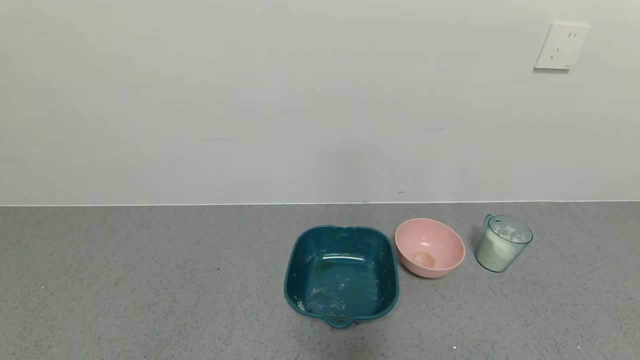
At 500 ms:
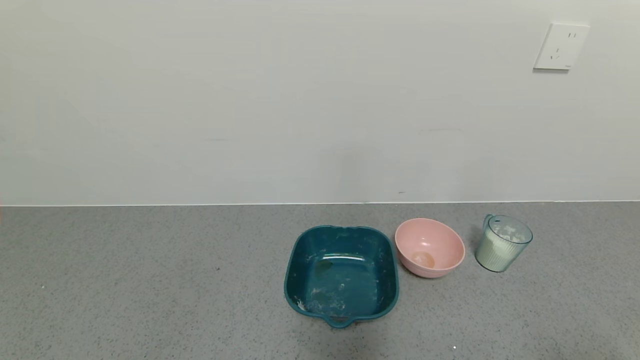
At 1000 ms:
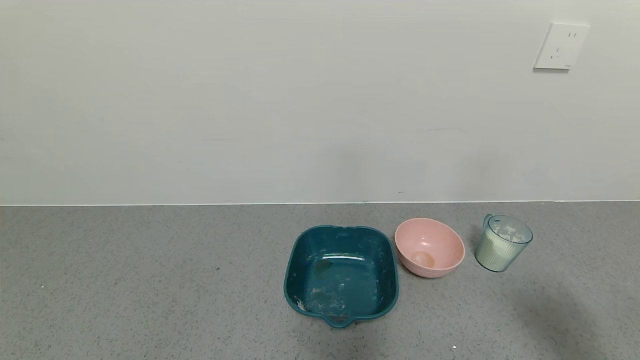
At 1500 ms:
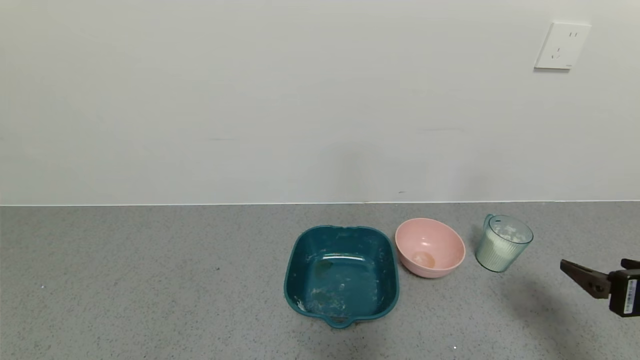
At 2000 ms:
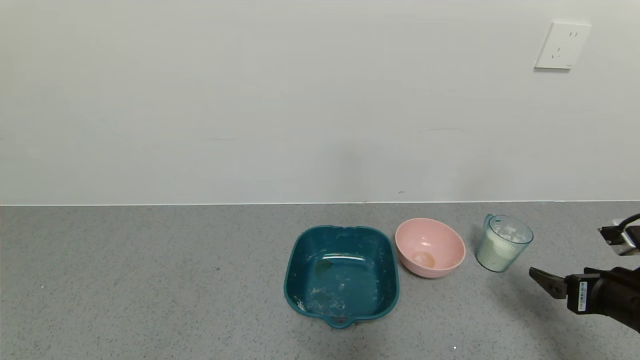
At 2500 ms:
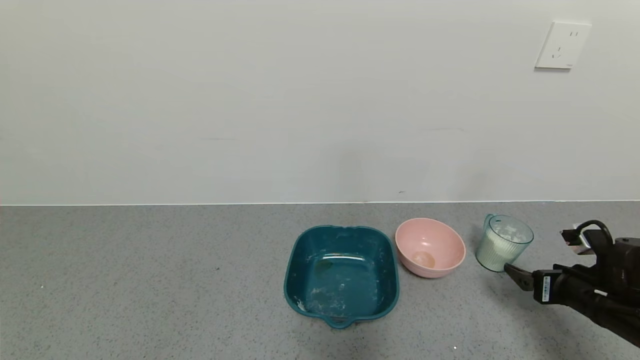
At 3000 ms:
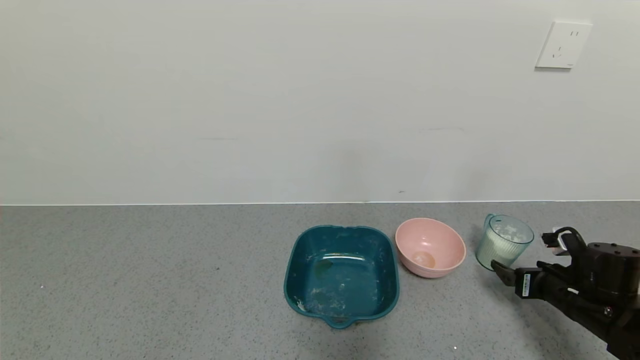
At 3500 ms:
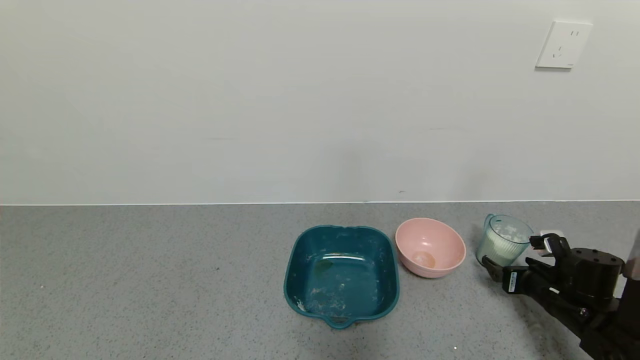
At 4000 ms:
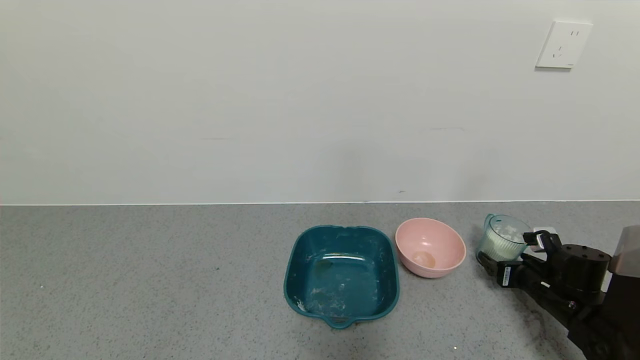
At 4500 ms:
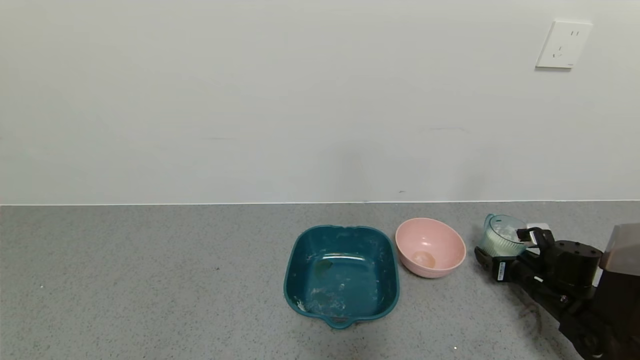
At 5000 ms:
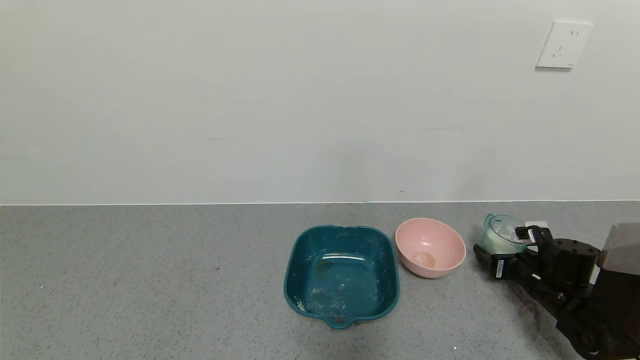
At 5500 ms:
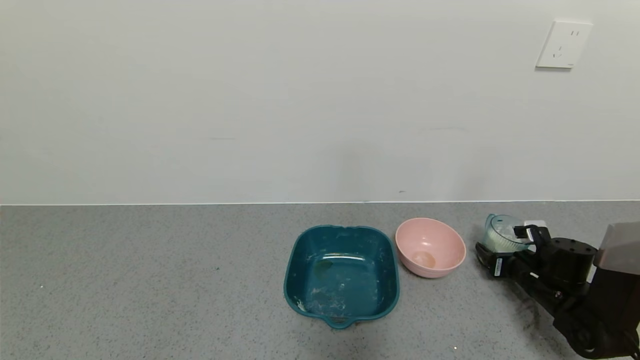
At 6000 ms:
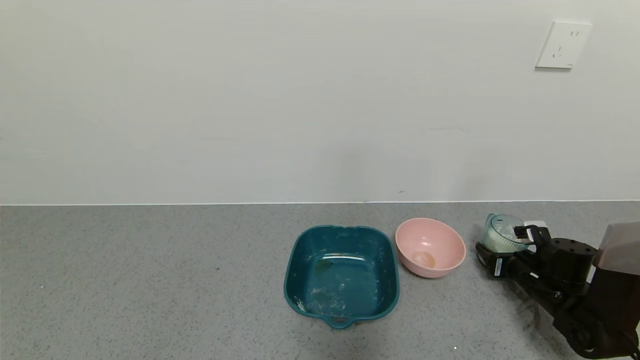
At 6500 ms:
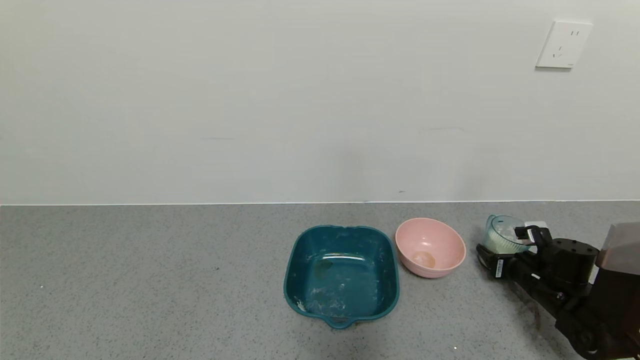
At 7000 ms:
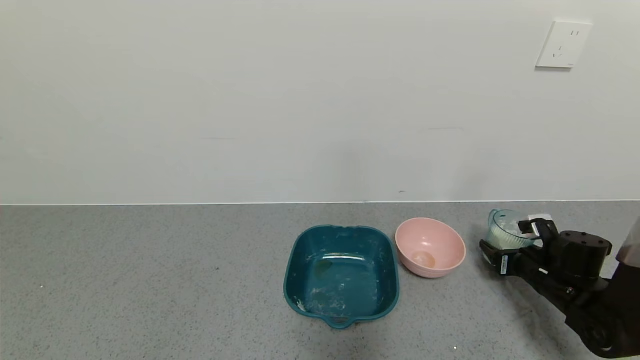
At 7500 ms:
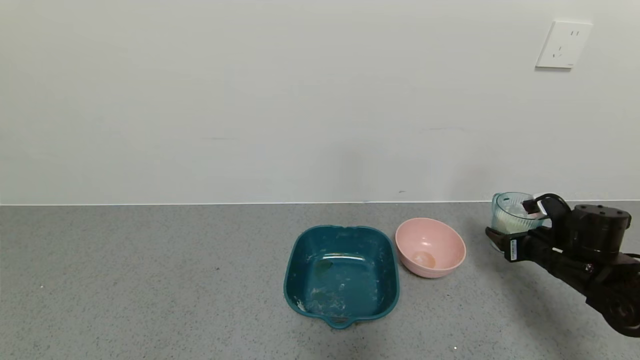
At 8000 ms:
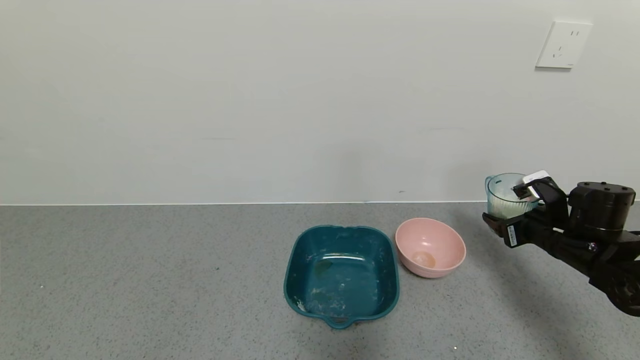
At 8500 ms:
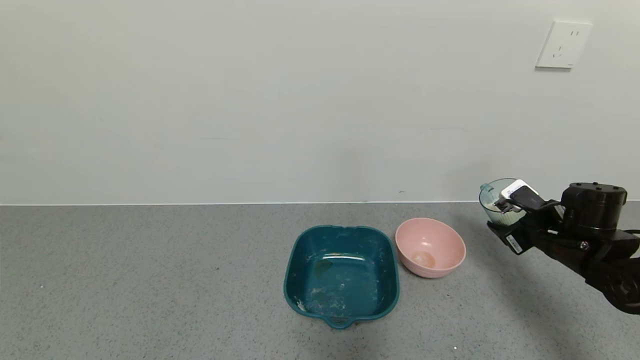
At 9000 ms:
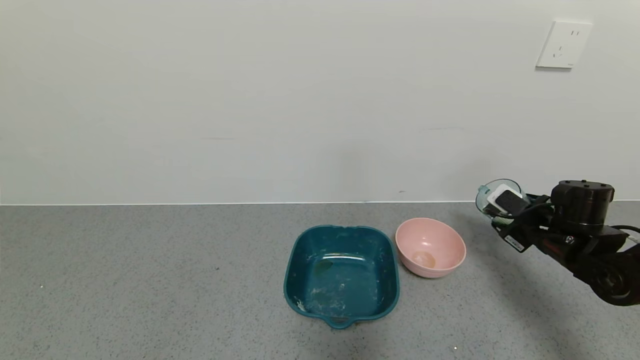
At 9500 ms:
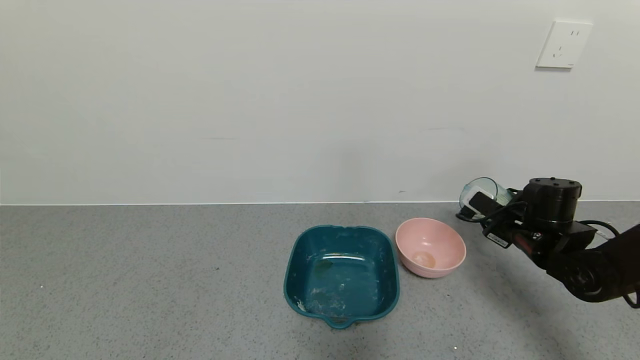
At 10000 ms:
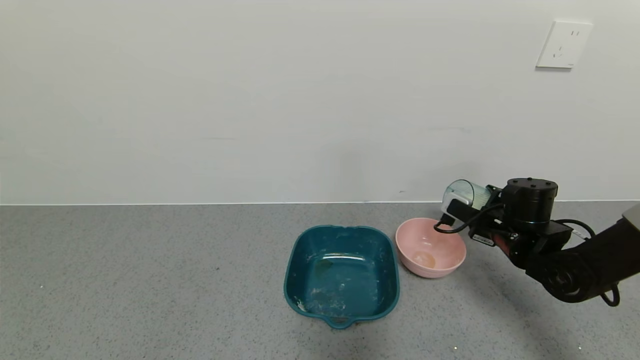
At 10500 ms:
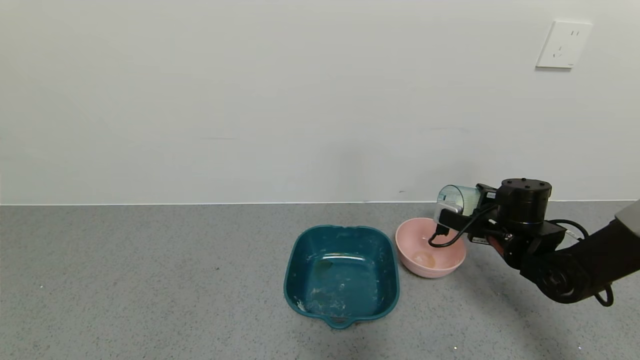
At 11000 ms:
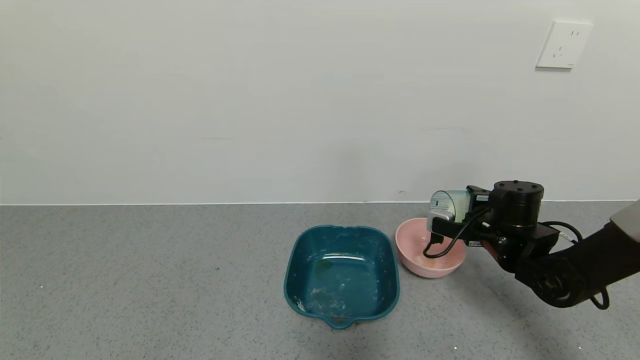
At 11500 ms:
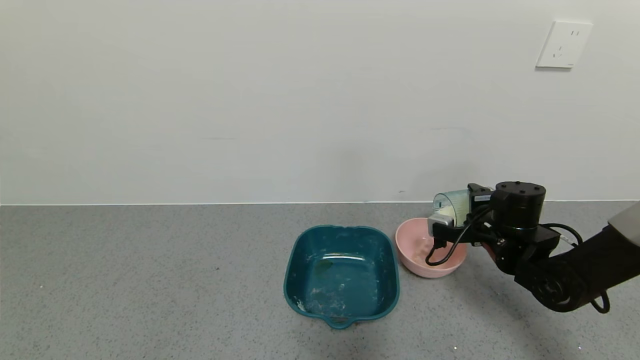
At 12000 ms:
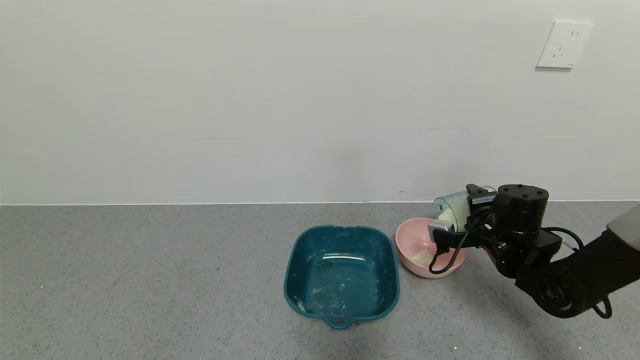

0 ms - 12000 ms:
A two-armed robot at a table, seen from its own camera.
Task of the whole recording: use a gripper to pick up the cup and pour the powder into a bowl or tray.
Step, 0 ms - 6000 ms: Grasp the glass of powder with the right gripper.
0 ms - 2000 ms: The right gripper heads forward, covering roughly 25 cm.
2000 ms - 4000 ms: The right gripper moves forward and downward, approximately 15 cm.
4000 ms - 6000 ms: The right gripper closes its fingers.
6000 ms - 8000 ms: The right gripper goes about 10 cm upward.
8000 ms - 10000 ms: The right gripper moves to the left, roughly 5 cm.

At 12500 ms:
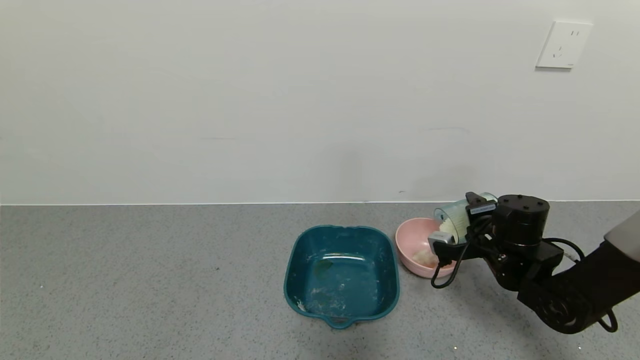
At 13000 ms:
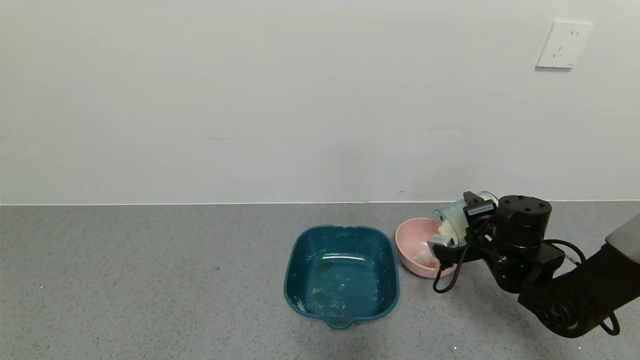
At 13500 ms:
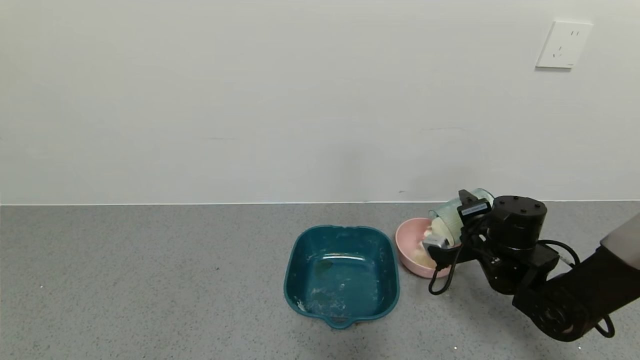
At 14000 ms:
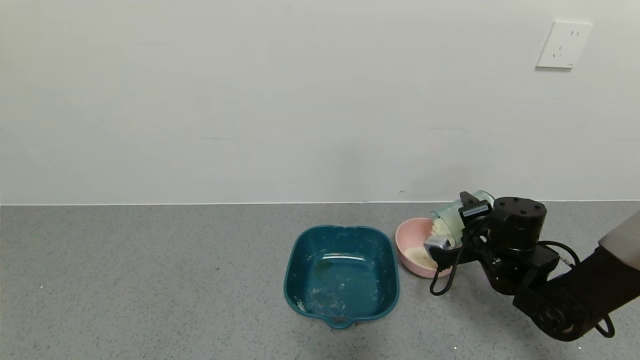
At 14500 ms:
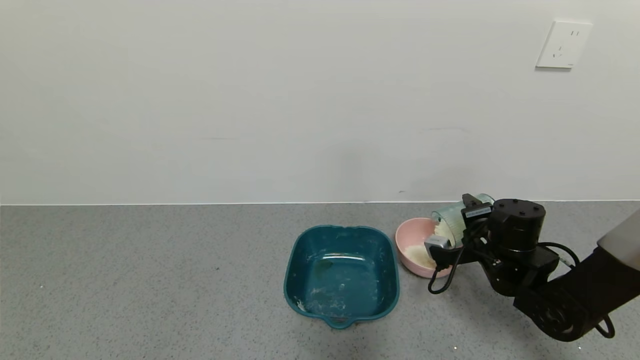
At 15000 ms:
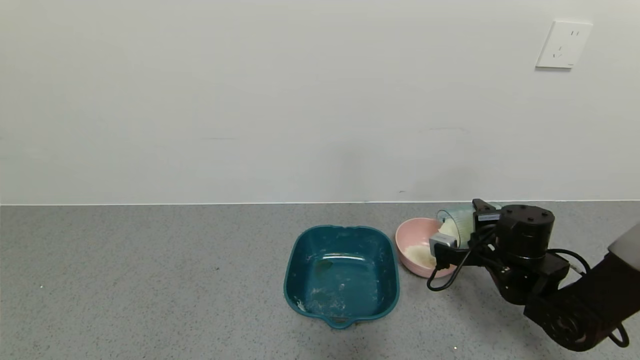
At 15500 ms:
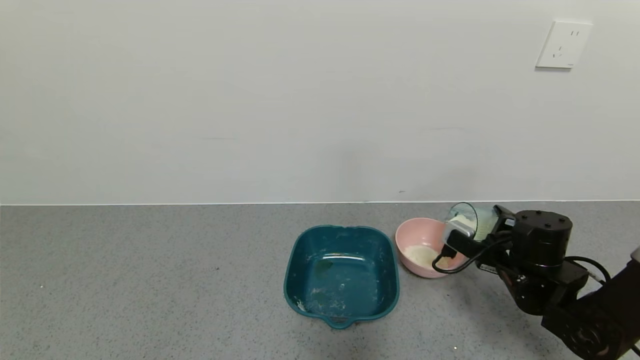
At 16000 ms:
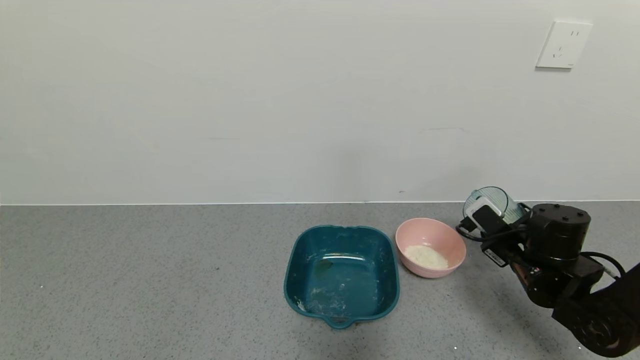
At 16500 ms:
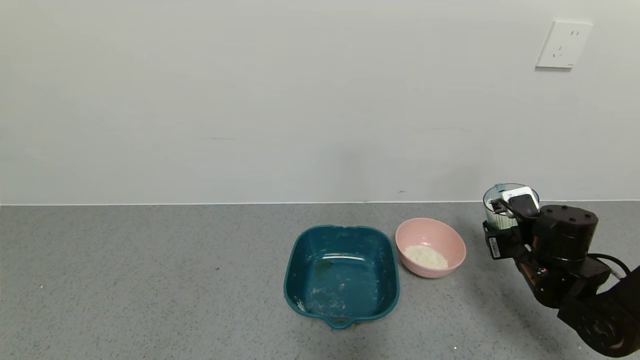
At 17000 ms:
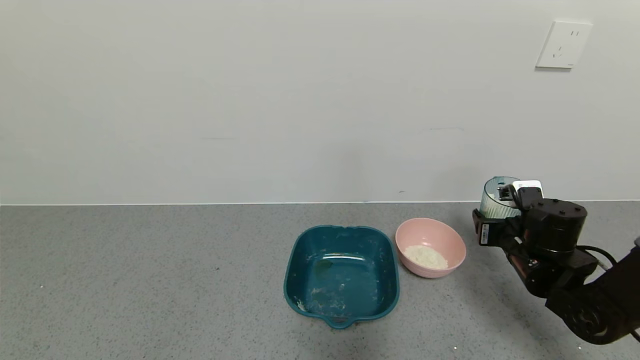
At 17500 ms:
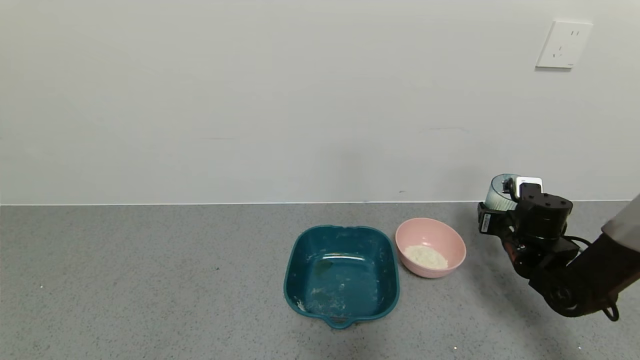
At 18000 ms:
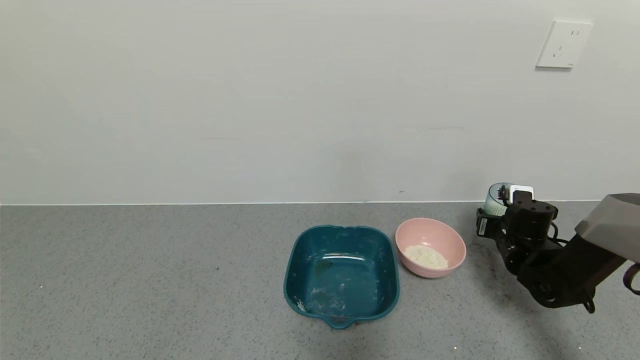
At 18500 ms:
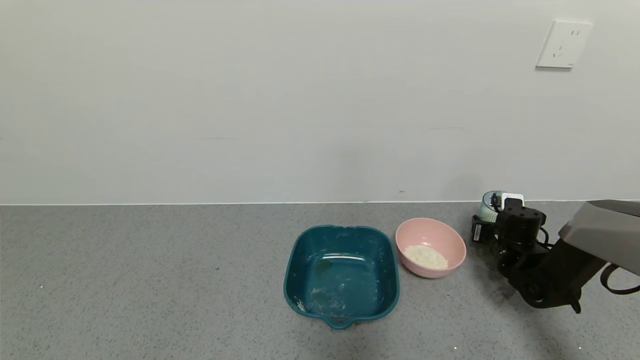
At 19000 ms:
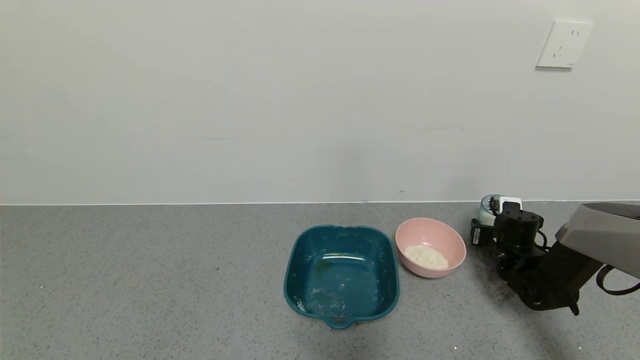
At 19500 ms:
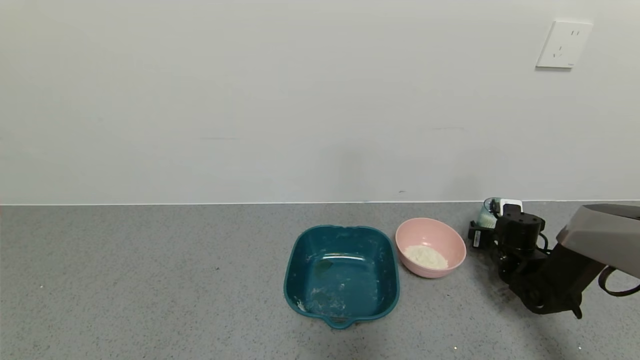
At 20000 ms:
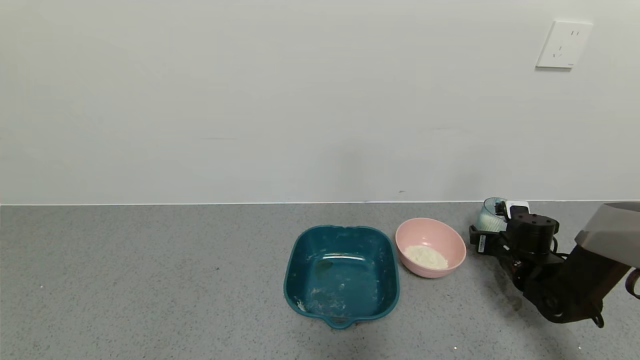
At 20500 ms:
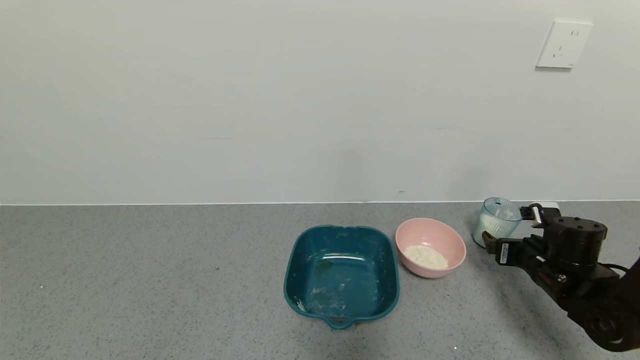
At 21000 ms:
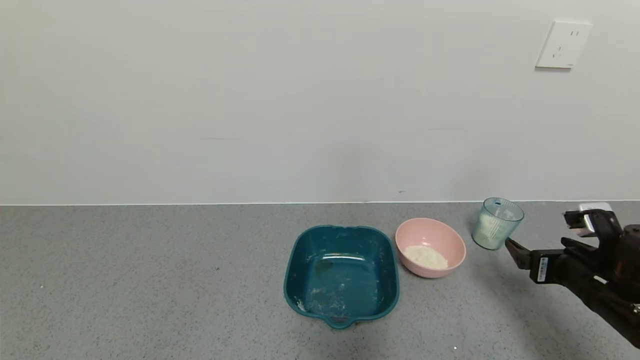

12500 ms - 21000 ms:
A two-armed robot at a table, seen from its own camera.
Task of the whole recording: use a gripper to pick up the cup and pour the powder into a bowl or tray.
Step, 12500 ms - 15000 ms: Pour the powder into the pink bowl with the right gripper.
Step, 15500 ms - 20000 ms: Place the glass cup down with the right gripper.
12500 ms - 14500 ms: The grippers make only small movements.
14500 ms - 16500 ms: The right gripper changes place by approximately 5 cm.
16500 ms - 19000 ms: The right gripper moves forward and downward, approximately 15 cm.
19000 ms - 21000 ms: The right gripper heads backward and upward, covering some 20 cm, and opens up.
